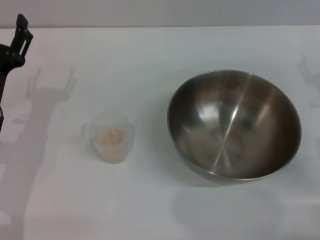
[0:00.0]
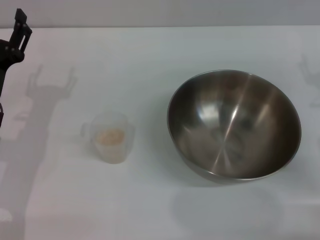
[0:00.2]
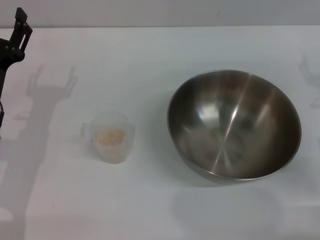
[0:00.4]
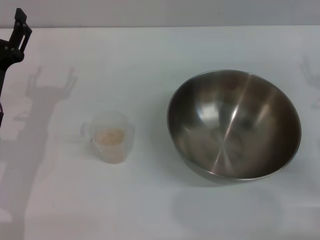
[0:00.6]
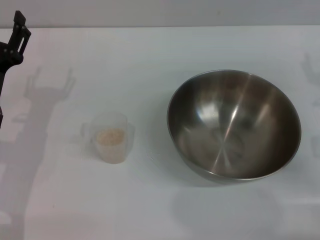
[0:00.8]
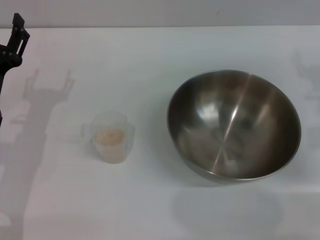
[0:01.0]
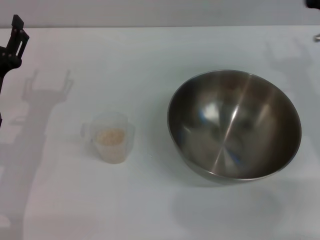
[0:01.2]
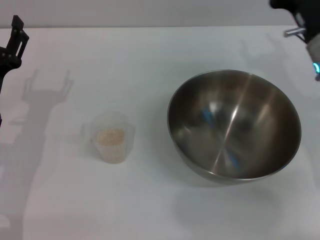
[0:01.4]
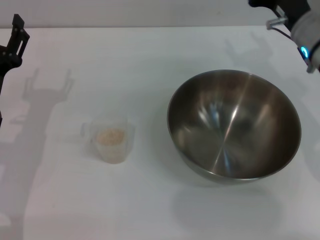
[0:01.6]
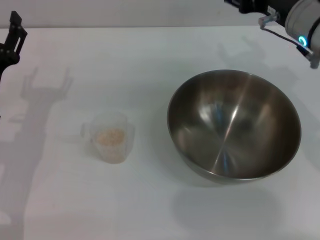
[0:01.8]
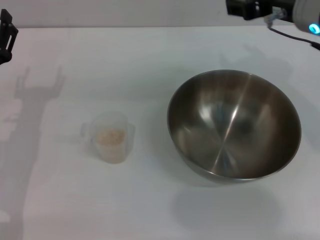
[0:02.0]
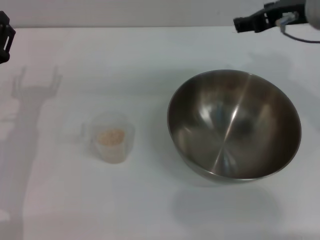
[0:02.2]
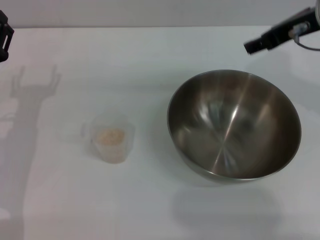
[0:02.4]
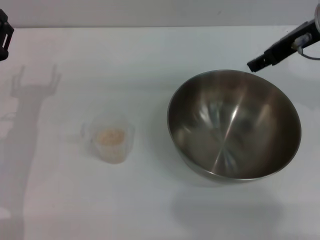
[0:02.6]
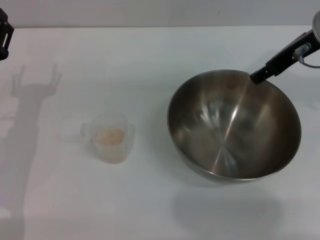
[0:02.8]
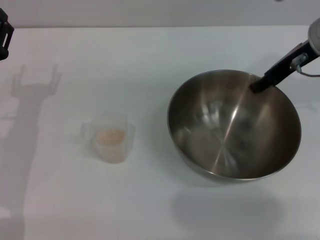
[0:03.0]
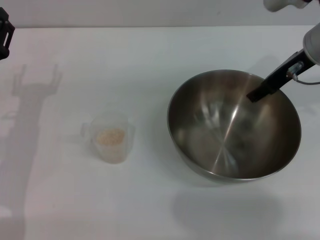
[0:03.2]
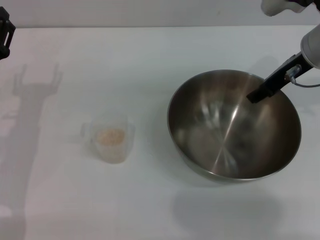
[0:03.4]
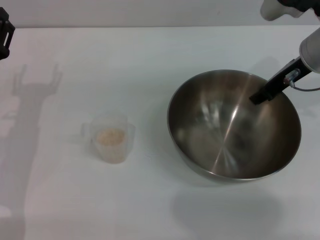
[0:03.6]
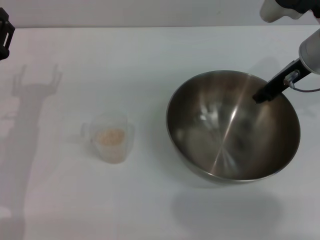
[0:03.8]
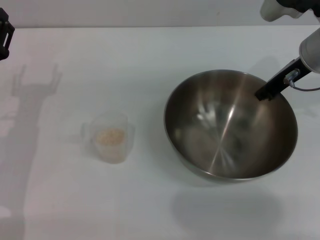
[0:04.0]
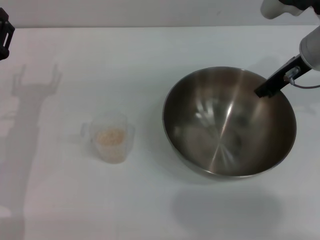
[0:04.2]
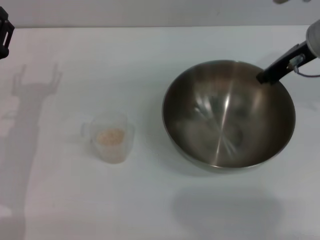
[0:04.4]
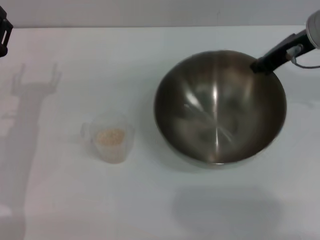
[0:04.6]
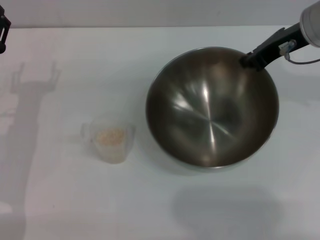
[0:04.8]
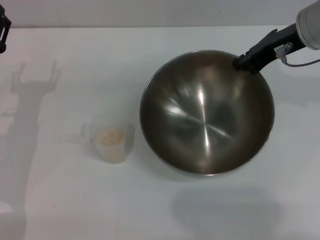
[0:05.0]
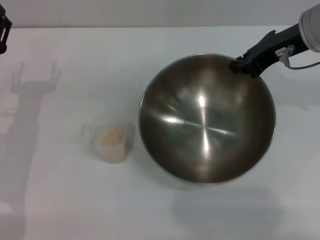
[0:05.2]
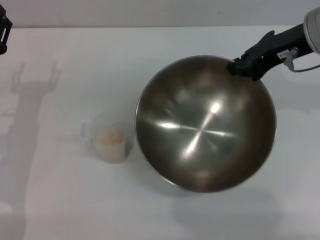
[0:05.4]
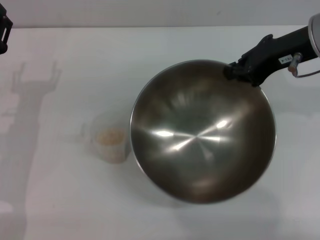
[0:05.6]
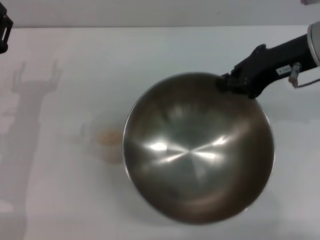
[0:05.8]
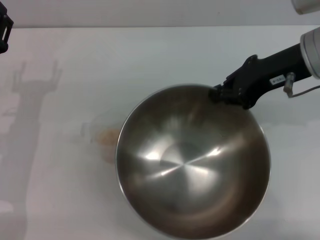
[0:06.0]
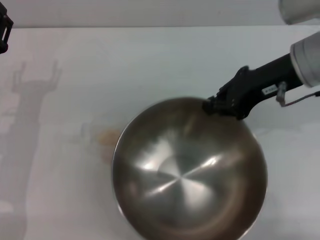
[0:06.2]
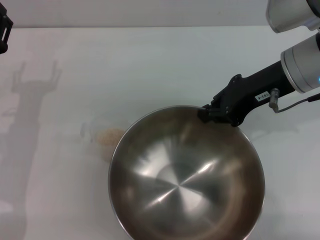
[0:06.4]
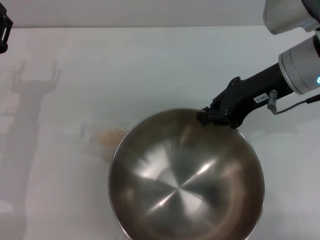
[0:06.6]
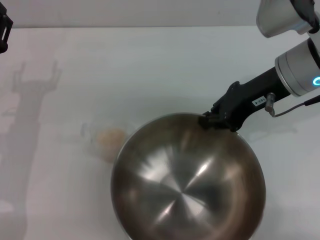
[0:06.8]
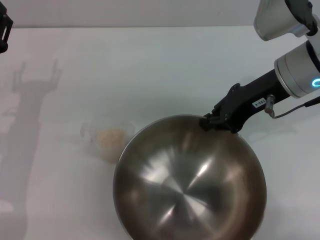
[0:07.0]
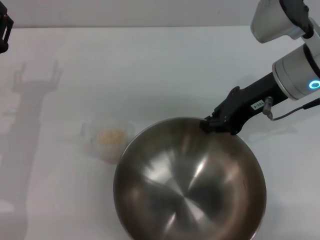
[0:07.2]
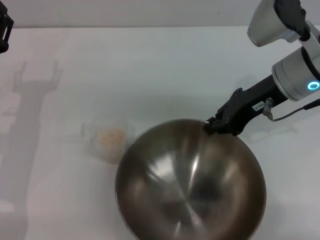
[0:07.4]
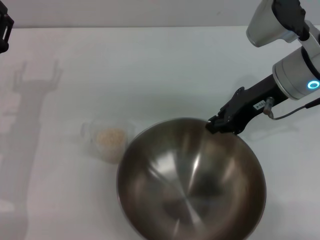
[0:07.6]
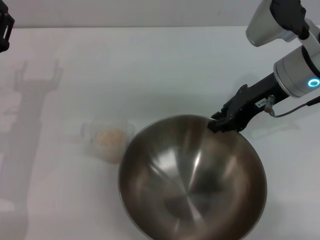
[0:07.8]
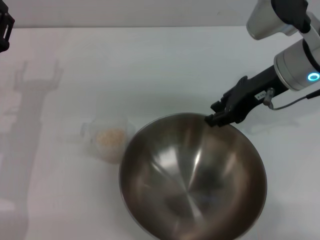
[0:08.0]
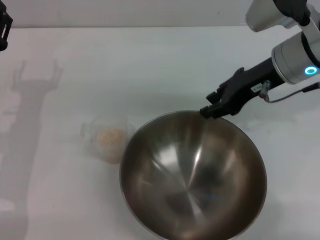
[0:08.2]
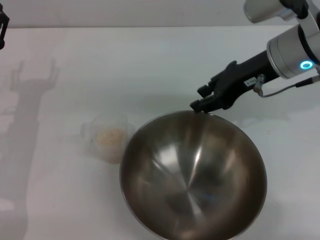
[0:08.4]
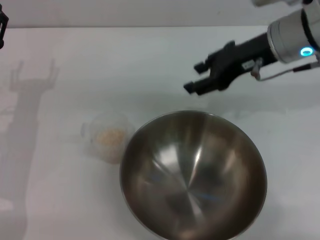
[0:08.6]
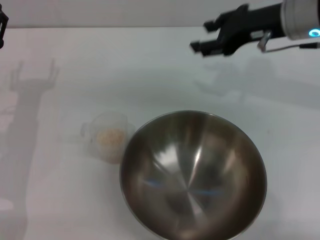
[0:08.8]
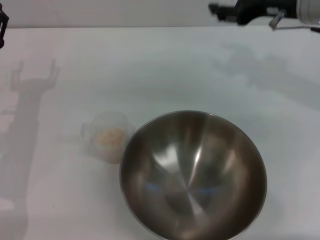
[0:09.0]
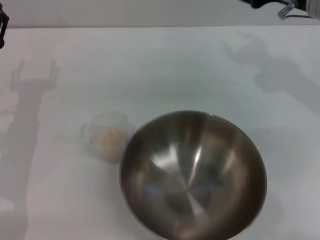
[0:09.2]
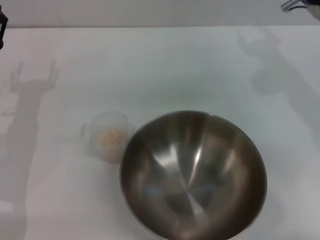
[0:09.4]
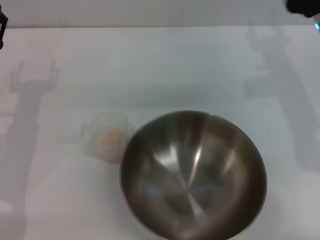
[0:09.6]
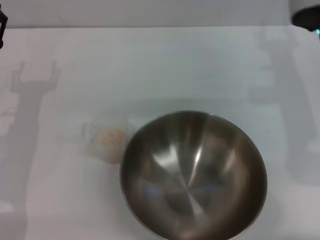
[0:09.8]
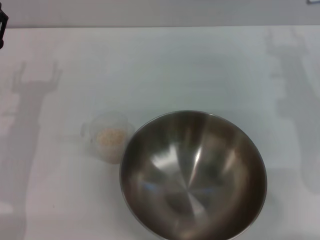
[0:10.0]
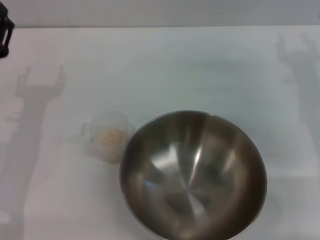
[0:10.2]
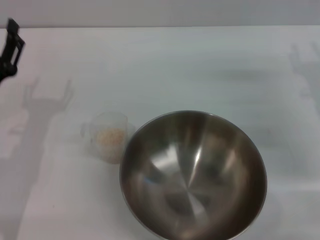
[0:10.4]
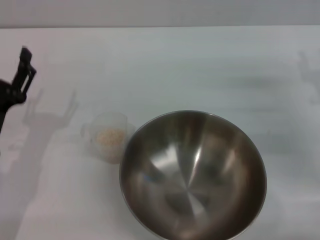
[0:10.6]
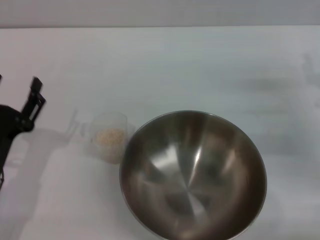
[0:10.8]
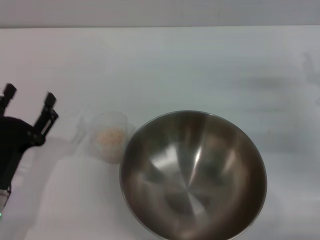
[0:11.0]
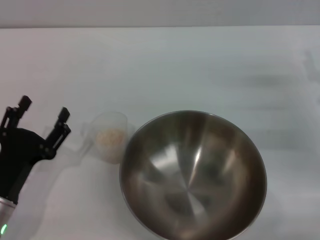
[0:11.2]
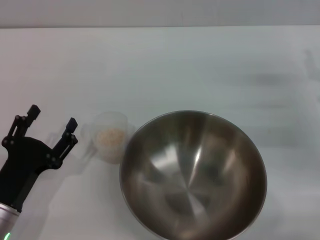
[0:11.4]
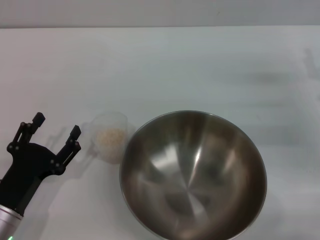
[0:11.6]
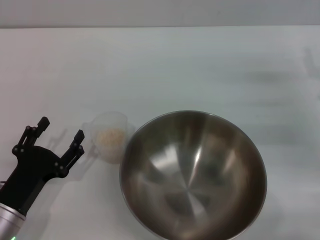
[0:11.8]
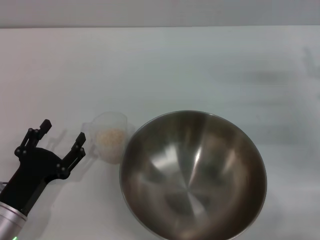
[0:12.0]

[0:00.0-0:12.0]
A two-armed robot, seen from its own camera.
Task of the whole recording: Place the bowl in the middle of the table with one hand and pour the rice from the grain cup into it with the other hand.
Step, 0:00.0 to 0:04.8: Pick up the bowl with the right gripper.
Step, 0:05.0 to 0:08.4: Place the bowl in the center of view with the right gripper.
0:00.0 to 0:01.6: The right gripper is displaced to the left, forward and upward by some 15 cm.
0:01.6 to 0:03.0: The right gripper travels upward by roughly 5 cm.
0:03.0 to 0:04.4: The right gripper closes its fingers.
0:04.4 to 0:06.0: The right gripper shifts by roughly 5 cm.
0:07.6 to 0:09.0: The right gripper changes place by some 5 cm, and opens its fingers.
0:09.0 to 0:10.4: The left gripper moves roughly 5 cm. Meanwhile the right gripper is displaced downward, to the right and backward by about 15 cm.
0:10.4 to 0:12.0: The left gripper goes some 10 cm backward and downward.

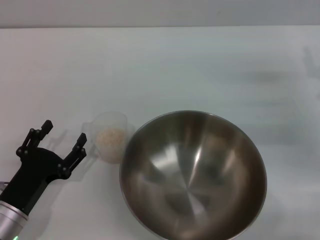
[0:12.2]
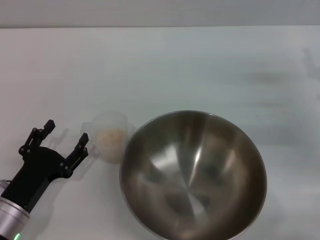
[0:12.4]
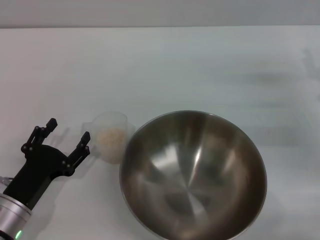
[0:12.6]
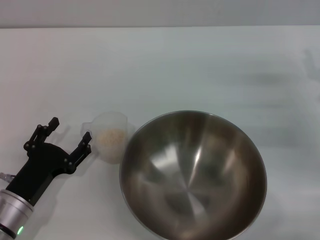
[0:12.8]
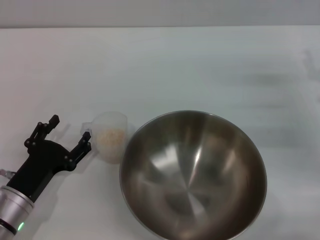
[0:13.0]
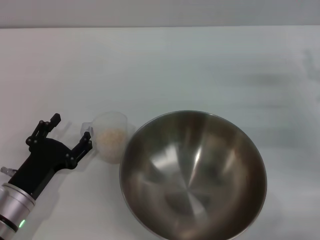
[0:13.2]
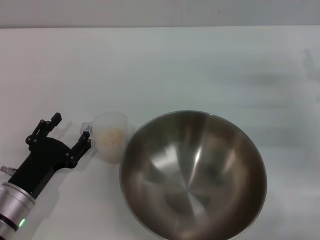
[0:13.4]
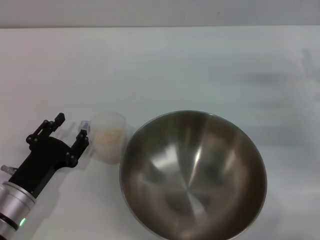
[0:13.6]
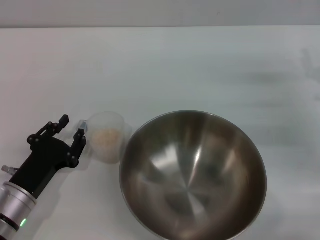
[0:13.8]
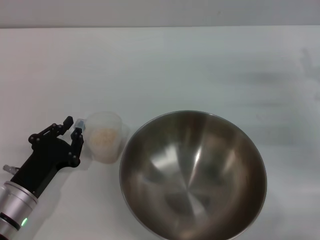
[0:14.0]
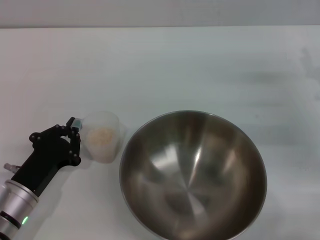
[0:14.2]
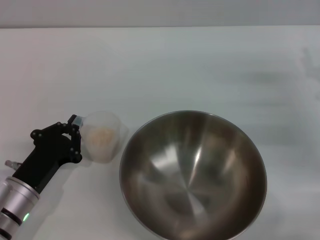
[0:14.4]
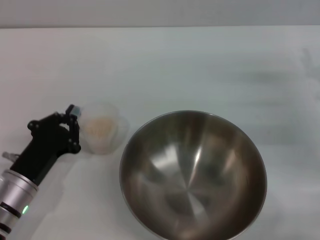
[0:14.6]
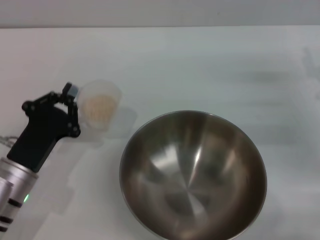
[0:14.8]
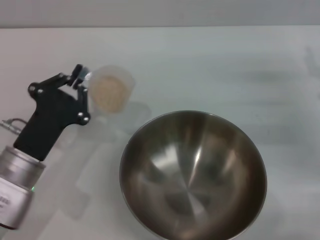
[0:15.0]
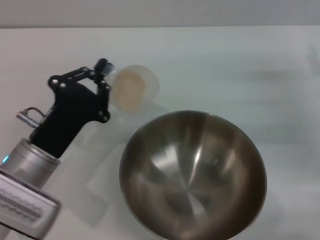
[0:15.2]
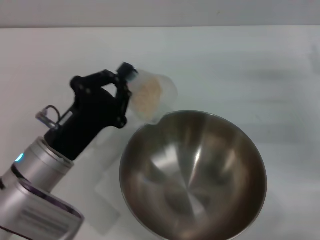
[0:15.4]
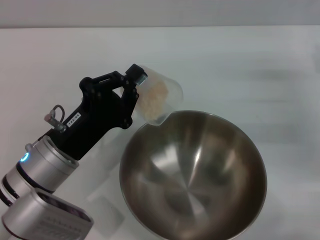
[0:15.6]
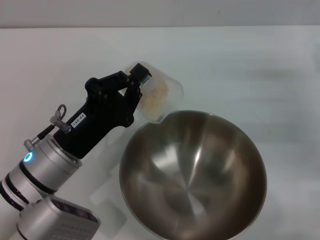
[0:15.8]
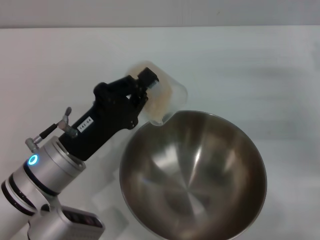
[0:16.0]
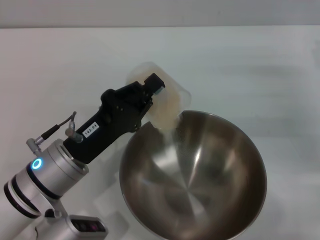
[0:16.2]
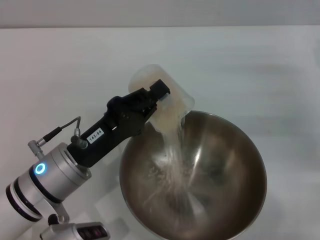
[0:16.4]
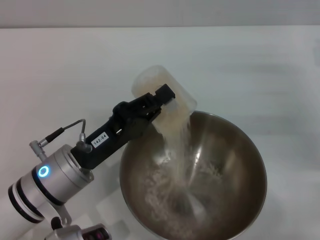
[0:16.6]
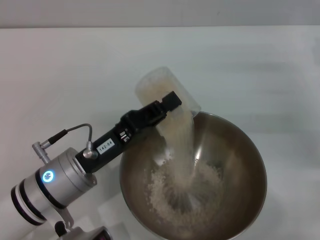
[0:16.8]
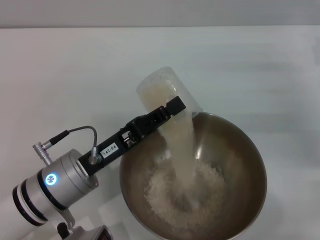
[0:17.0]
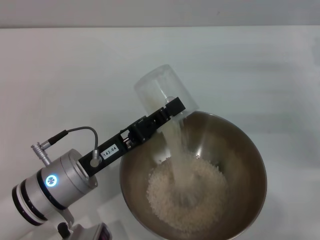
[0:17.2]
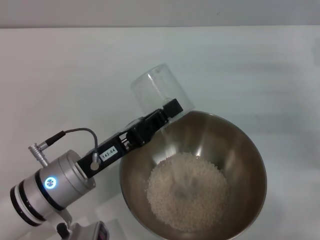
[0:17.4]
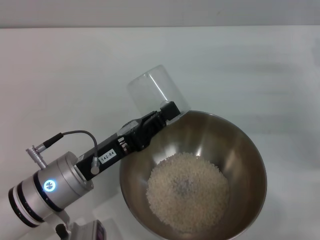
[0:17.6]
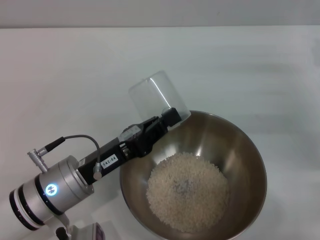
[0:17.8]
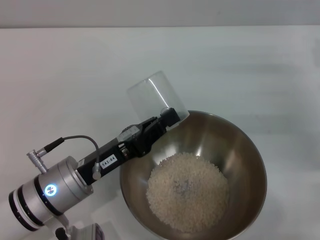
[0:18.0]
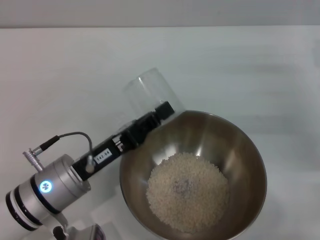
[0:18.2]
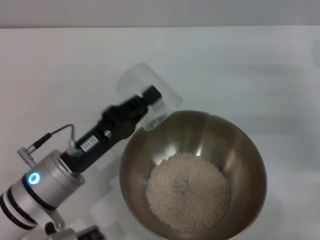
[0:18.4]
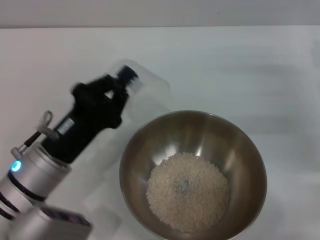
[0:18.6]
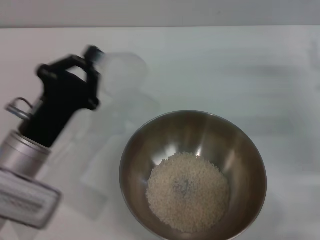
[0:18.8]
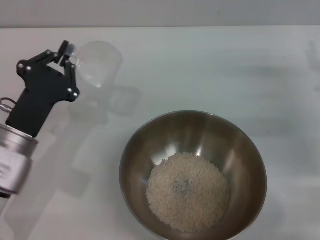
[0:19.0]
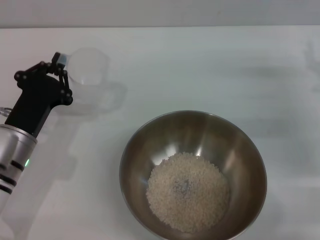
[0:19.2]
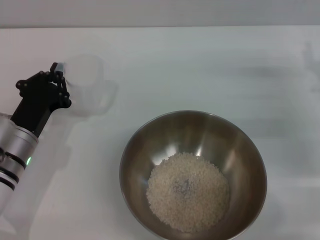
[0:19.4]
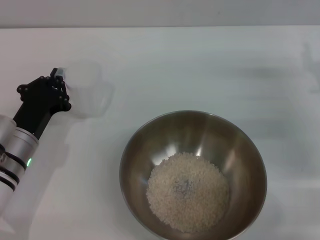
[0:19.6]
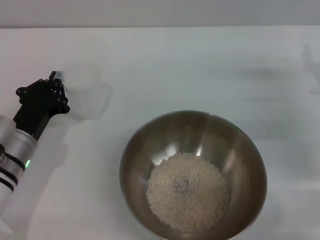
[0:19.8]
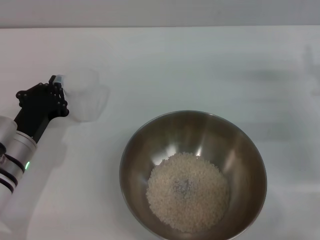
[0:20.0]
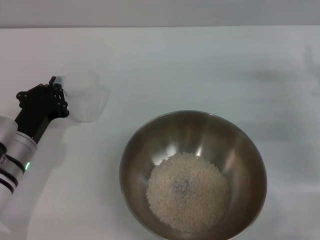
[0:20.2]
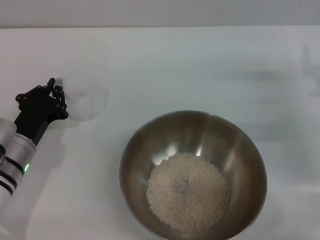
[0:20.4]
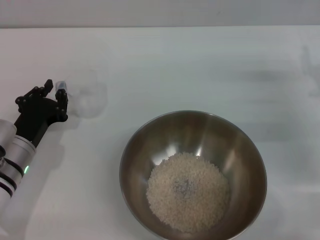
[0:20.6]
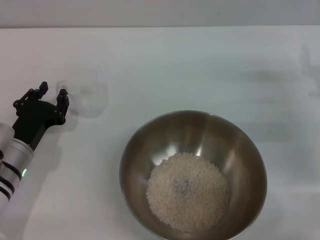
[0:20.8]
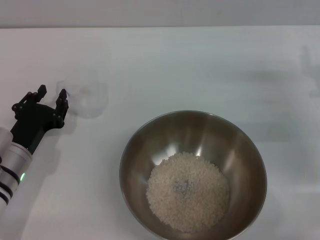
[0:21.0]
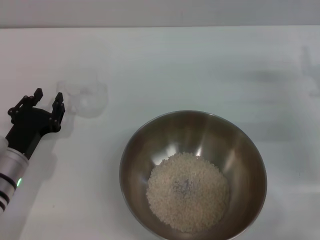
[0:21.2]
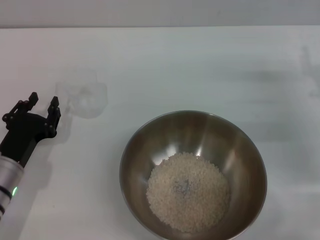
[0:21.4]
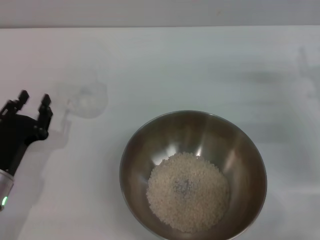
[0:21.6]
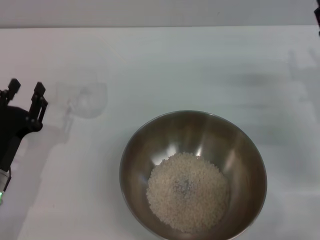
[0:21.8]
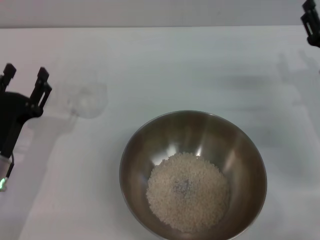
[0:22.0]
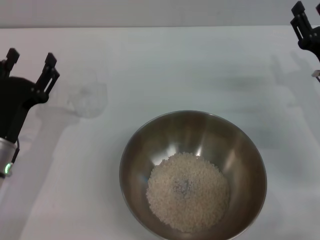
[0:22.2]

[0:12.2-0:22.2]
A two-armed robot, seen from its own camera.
Task of the whole recording: Place the bowl in the middle of the table with one hand and pour the rice from the grain cup into it with the other hand.
Step, 0:12.2 to 0:14.8: Pick up the cup with rice in it with the left gripper.
Step, 0:15.0 to 0:18.4: Pour the rice from the cup into the bowl with the left gripper.
Step, 0:18.6 to 0:21.4: Place the cup on the table with the left gripper.
0:12.2 to 0:13.6: There are only small adjustments of the grippers.
0:13.6 to 0:15.0: The left gripper heads upward, covering approximately 5 cm, and closes.
0:15.0 to 0:16.4: The left gripper shifts by some 5 cm.
0:18.0 to 0:19.4: The left gripper shifts approximately 10 cm to the left and forward.
0:19.4 to 0:20.8: There are only small adjustments of the grippers.
